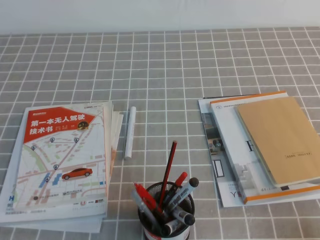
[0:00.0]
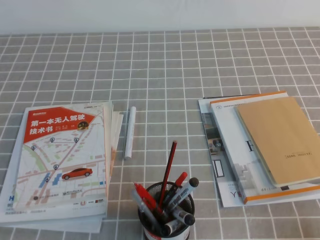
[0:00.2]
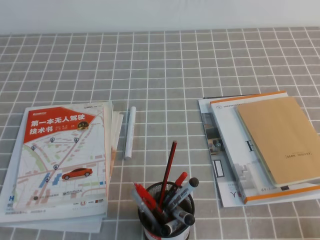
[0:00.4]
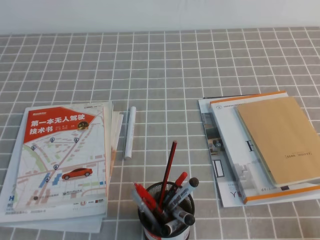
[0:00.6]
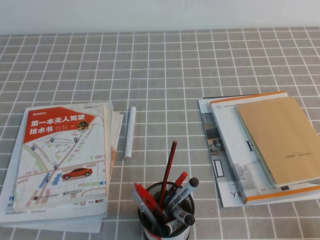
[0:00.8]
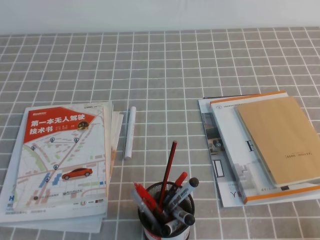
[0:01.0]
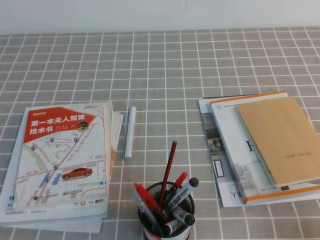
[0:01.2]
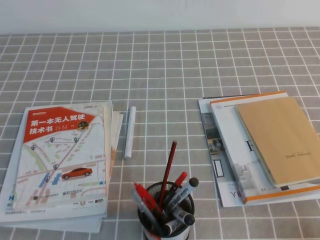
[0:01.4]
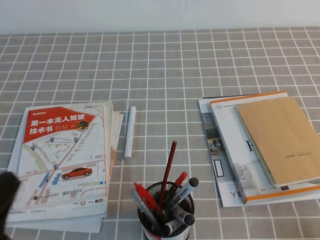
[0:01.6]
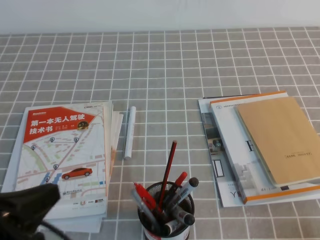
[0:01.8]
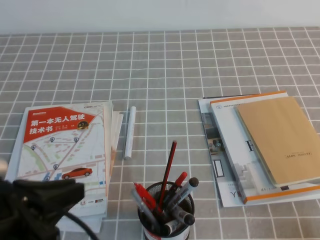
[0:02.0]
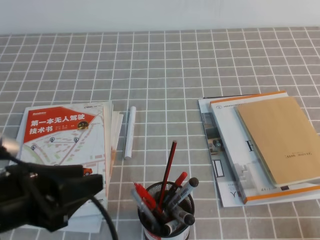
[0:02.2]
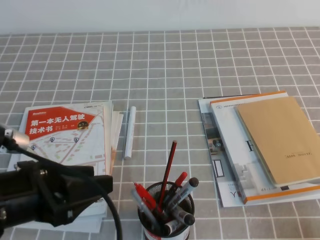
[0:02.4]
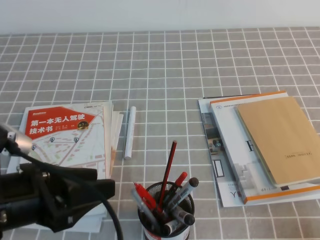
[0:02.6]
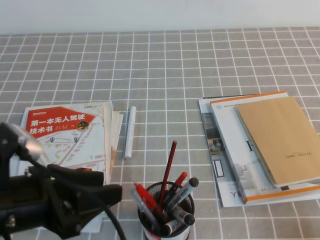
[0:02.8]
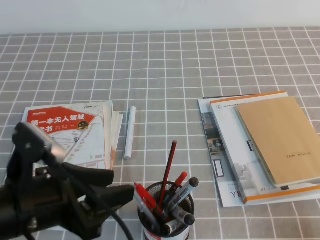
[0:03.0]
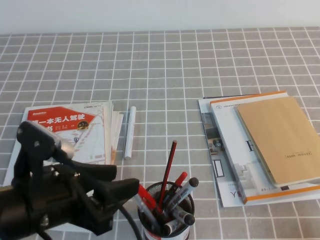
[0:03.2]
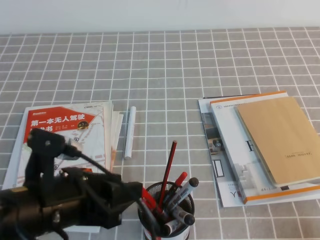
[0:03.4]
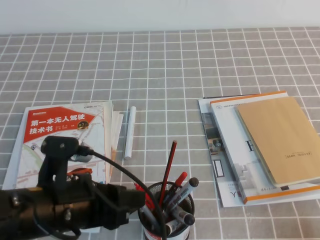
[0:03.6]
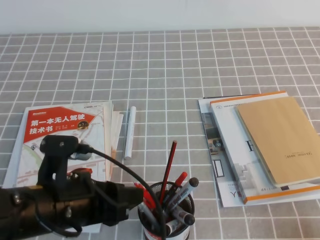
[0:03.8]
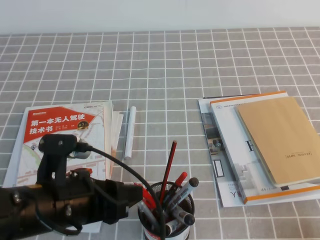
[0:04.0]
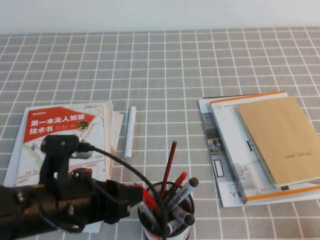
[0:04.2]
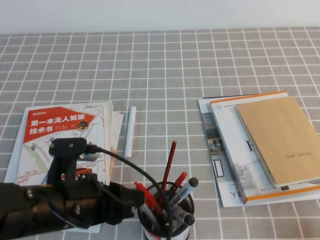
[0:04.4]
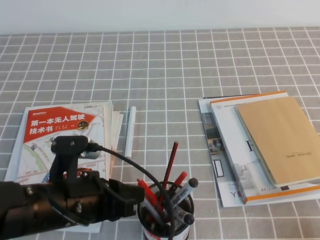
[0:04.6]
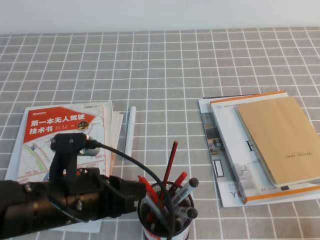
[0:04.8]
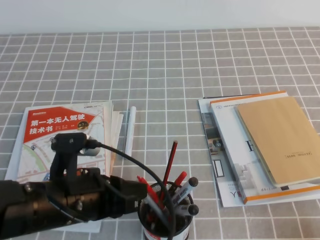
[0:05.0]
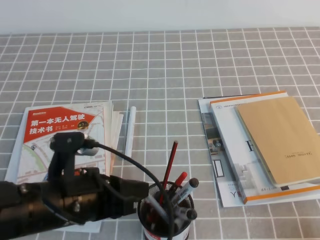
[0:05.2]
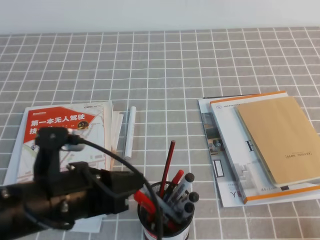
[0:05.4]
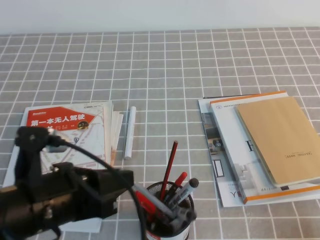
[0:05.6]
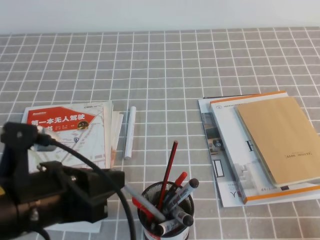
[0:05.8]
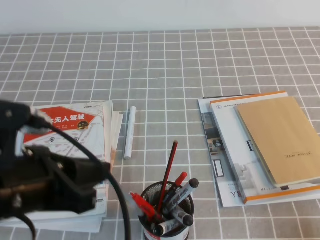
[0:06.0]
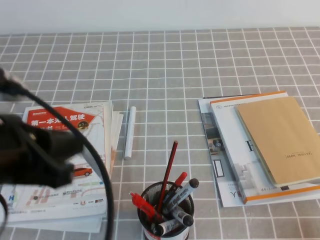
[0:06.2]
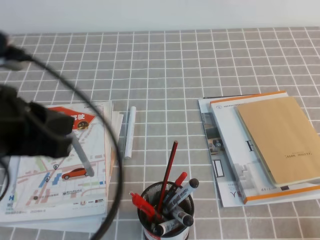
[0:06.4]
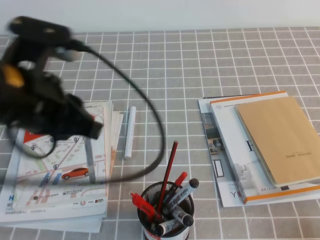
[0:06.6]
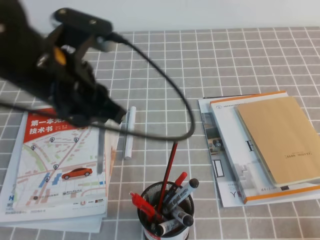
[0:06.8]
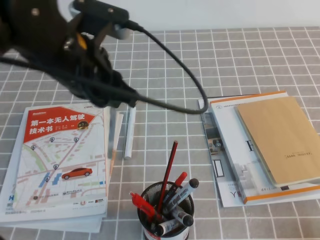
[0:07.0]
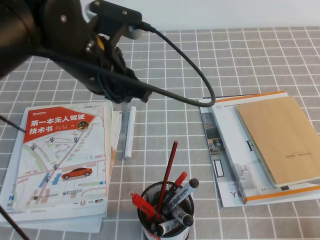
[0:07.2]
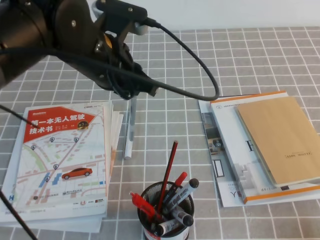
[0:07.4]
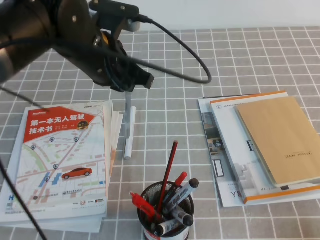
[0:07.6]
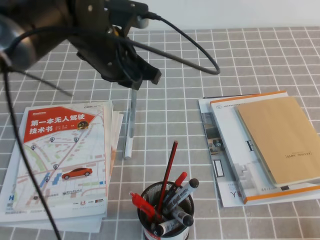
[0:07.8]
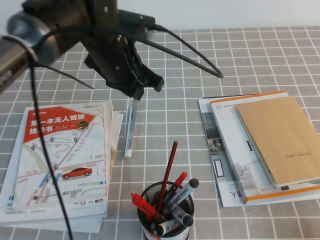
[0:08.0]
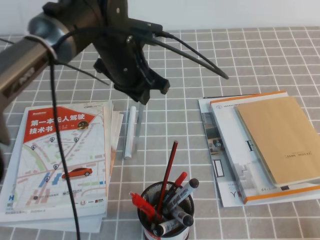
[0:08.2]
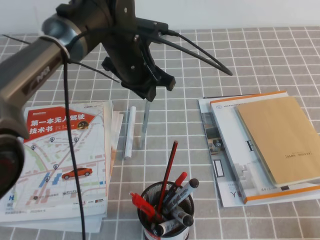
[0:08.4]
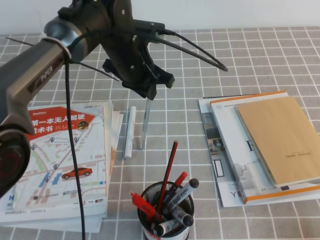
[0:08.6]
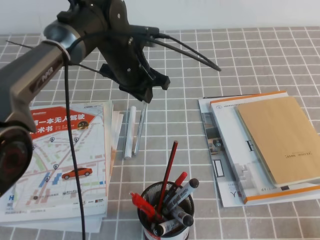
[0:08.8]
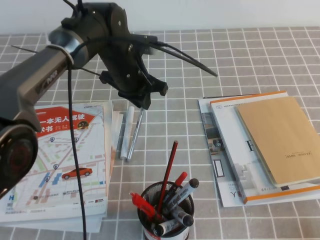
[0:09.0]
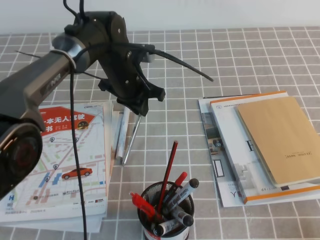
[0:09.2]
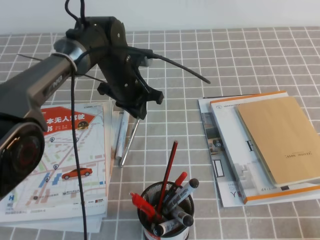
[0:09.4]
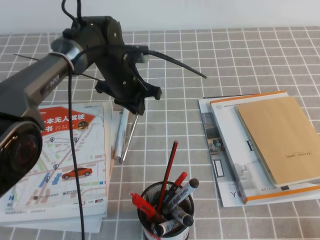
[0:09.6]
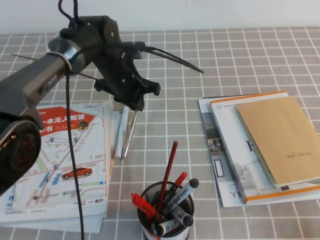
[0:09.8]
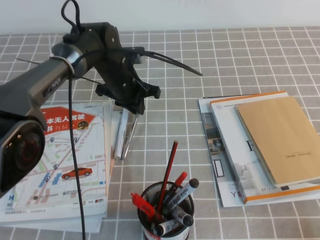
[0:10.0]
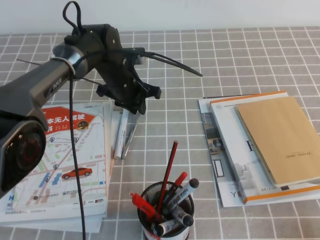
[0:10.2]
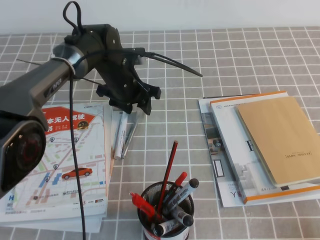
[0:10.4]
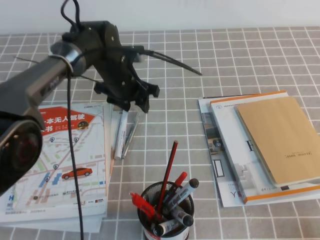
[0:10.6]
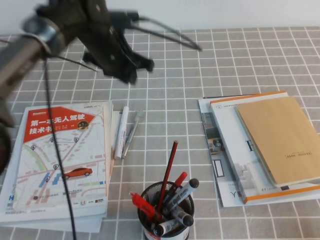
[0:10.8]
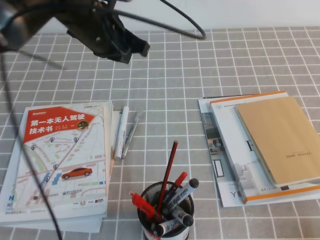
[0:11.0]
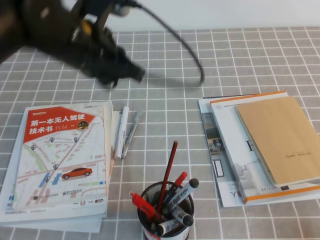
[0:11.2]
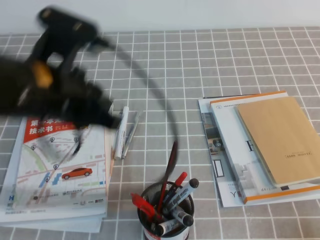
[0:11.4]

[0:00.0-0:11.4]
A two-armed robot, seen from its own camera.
0:01.4 to 0:02.8: The left gripper heads forward and to the right, covering about 10 cm, and opens.
0:02.8 to 0:04.2: The left gripper shifts by approximately 5 cm.
0:04.2 to 0:05.6: The left gripper closes its fingers.
0:05.6 to 0:07.2: The left gripper moves forward and upward, about 15 cm.
0:07.2 to 0:08.6: The left gripper goes roughly 15 cm forward and downward.
0:08.6 to 0:10.0: The left gripper heads downward, covering approximately 5 cm.
0:10.0 to 0:11.4: The left gripper travels backward and upward by about 25 cm, and opens, then closes once more.

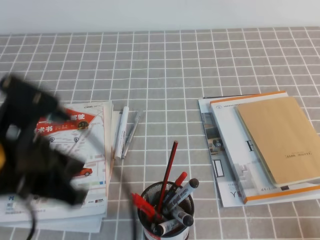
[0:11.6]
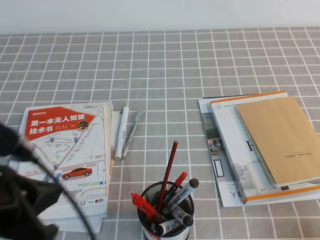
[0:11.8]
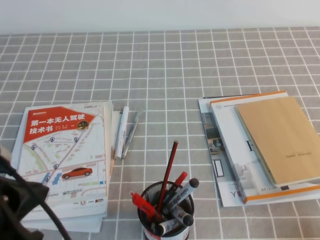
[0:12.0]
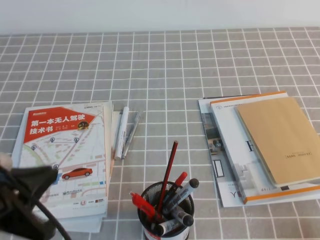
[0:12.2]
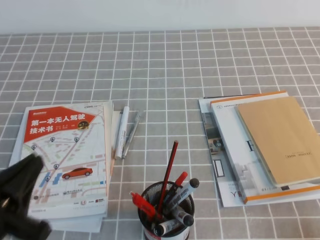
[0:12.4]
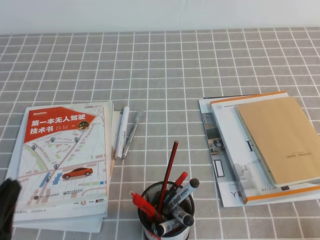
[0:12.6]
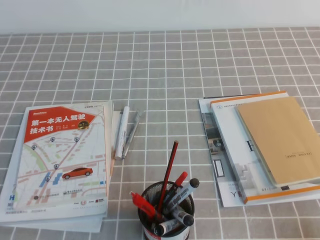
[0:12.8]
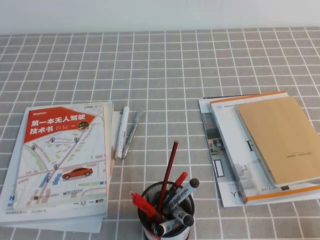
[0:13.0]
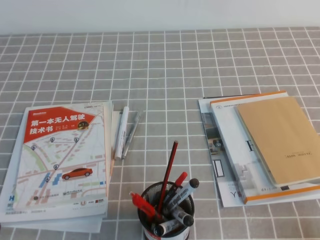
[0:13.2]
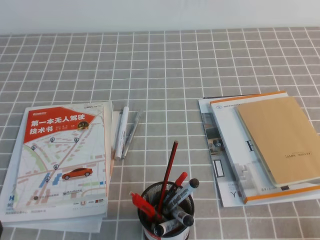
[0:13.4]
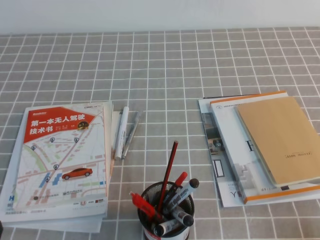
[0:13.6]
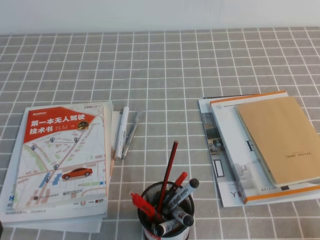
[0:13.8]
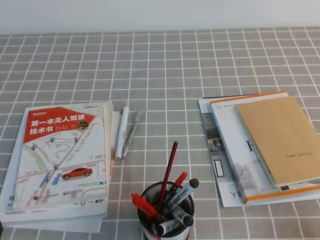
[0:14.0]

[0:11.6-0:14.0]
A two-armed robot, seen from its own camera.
Step, 0:11.6 to 0:14.0: Pick up the pen from the pen holder.
0:11.6 to 0:12.8: The left gripper is displaced downward, backward and to the left by roughly 20 cm.
0:12.8 to 0:14.0: The grippers stay close to where they were, moving slightly.

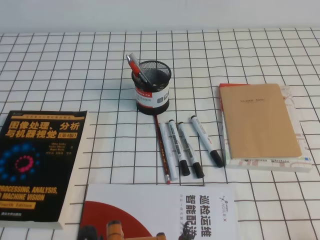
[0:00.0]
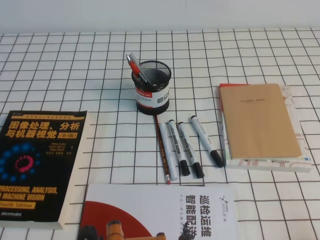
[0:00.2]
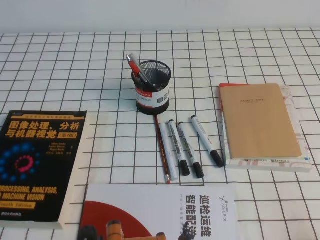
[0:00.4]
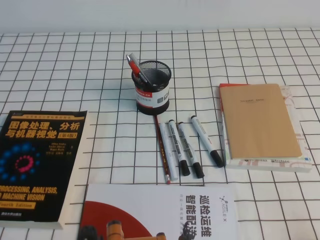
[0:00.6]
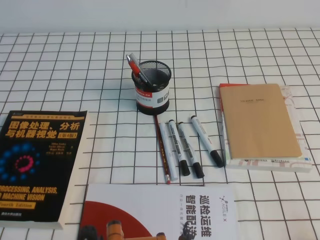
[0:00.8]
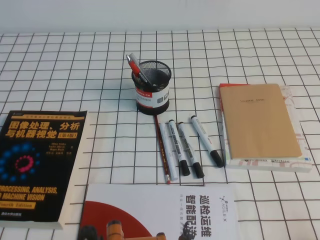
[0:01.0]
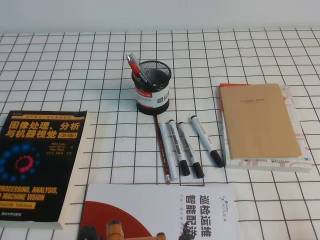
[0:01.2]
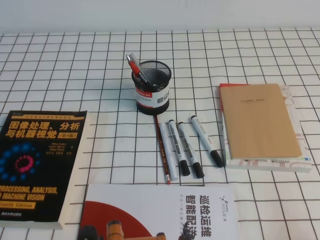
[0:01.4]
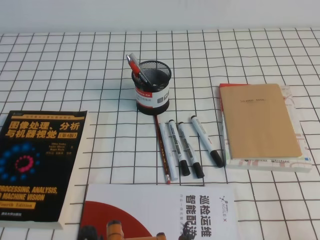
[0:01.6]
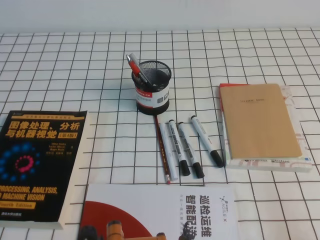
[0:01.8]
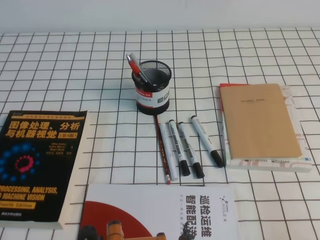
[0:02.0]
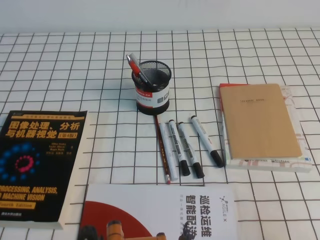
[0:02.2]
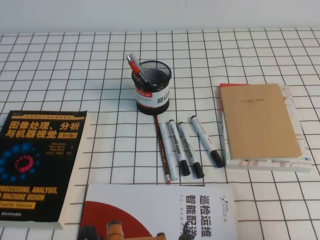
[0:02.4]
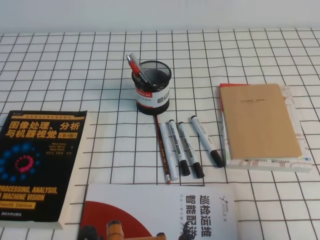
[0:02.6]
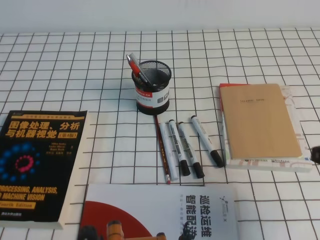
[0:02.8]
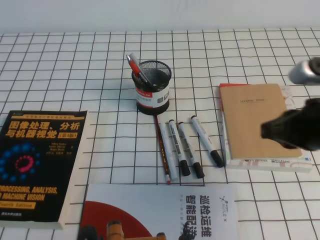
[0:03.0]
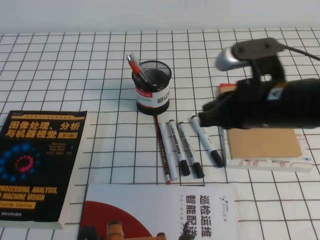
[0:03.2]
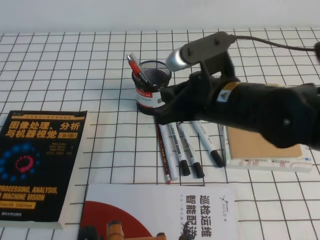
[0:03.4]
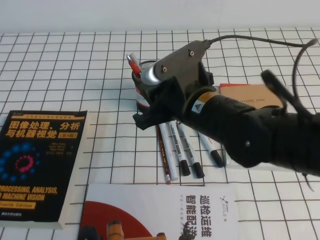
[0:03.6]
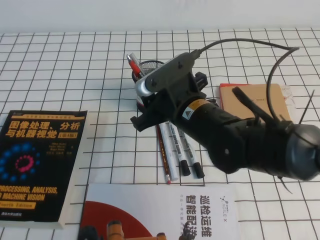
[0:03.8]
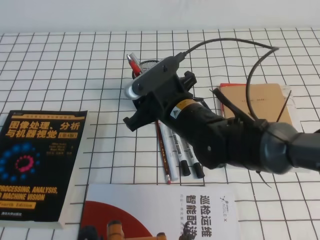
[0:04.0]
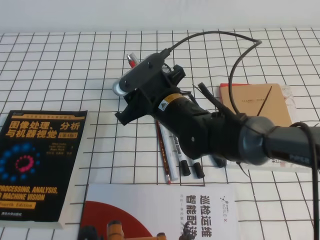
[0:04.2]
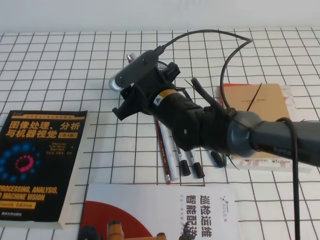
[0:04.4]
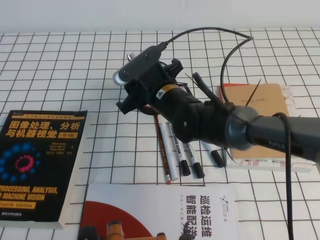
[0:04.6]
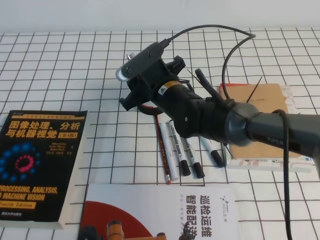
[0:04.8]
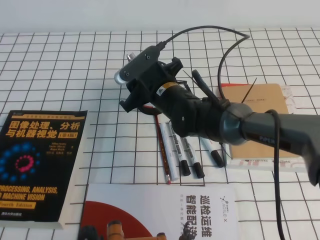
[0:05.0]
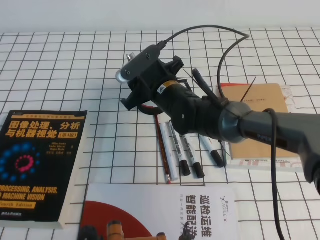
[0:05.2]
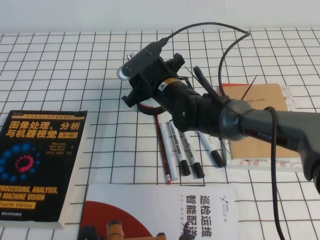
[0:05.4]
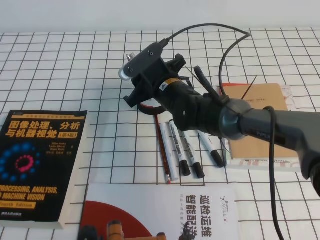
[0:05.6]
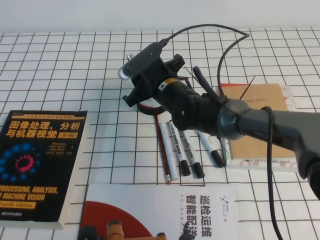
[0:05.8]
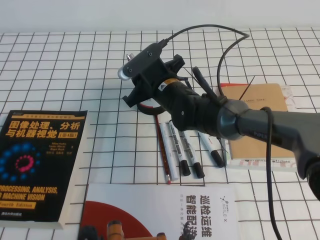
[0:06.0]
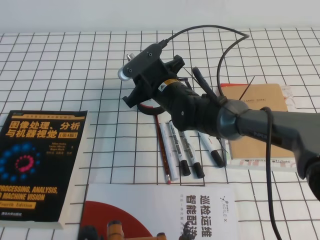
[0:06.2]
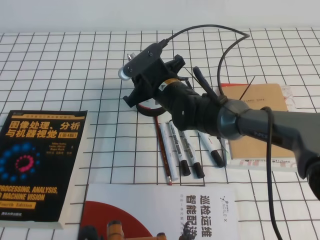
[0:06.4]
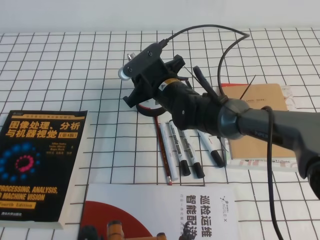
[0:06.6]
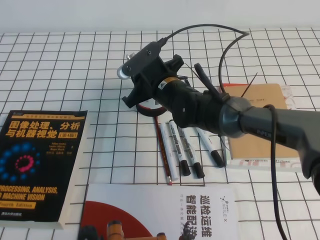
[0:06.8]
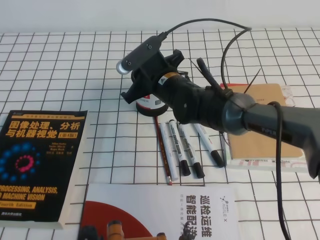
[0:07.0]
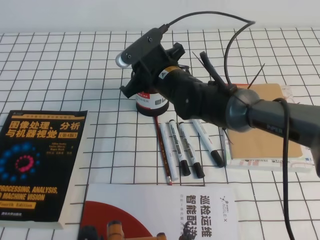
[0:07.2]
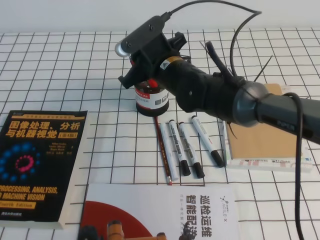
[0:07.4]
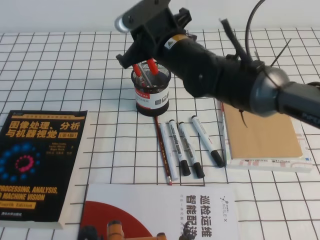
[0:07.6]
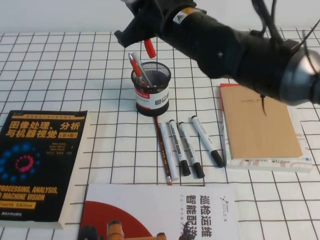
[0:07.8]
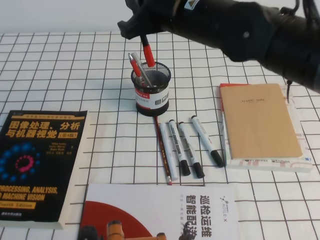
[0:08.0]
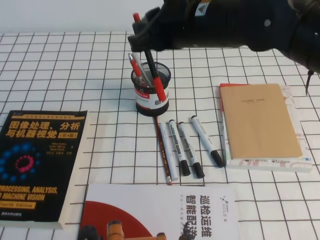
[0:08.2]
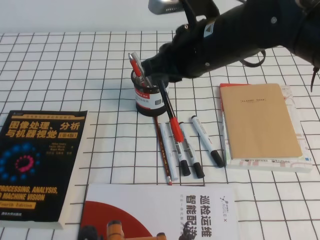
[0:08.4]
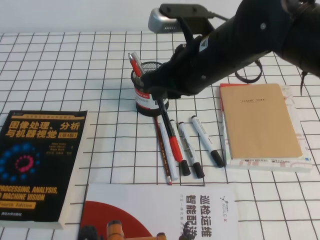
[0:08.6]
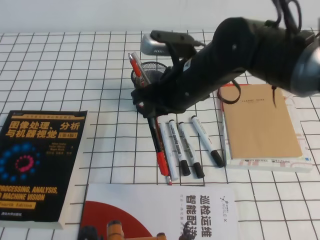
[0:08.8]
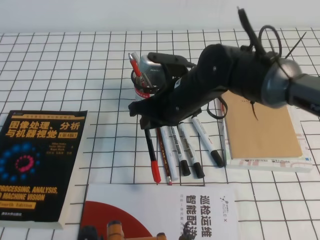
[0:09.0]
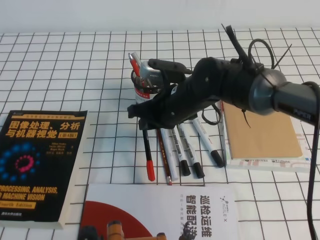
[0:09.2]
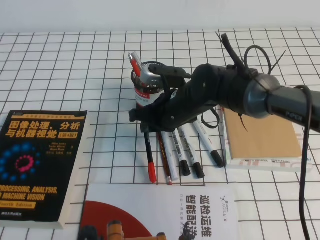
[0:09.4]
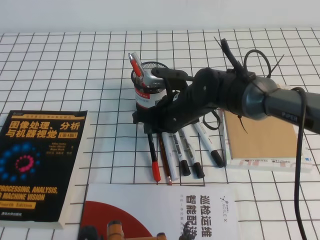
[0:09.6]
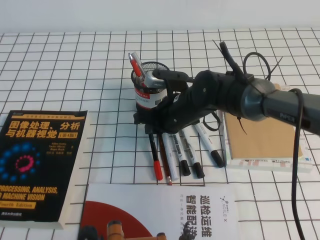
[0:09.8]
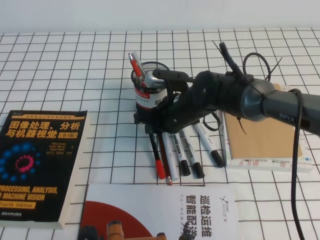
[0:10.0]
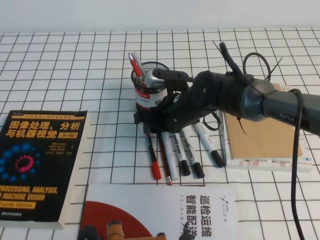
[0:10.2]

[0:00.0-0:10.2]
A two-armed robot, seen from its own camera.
0:01.4 to 0:03.0: The right gripper travels forward, upward and to the left by roughly 20 cm.
0:03.0 to 0:04.4: The right gripper is displaced to the left and forward by approximately 25 cm, and opens up.
0:04.4 to 0:05.8: The right gripper travels forward by approximately 5 cm.
0:05.8 to 0:07.2: The right gripper closes its fingers.
0:07.2 to 0:08.8: The right gripper shifts approximately 10 cm backward, upward and to the right.
0:08.8 to 0:10.2: The right gripper heads downward and forward, covering approximately 15 cm, and opens.
